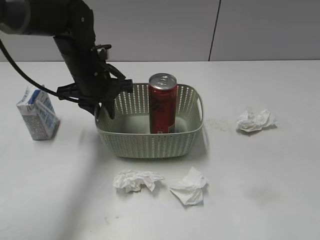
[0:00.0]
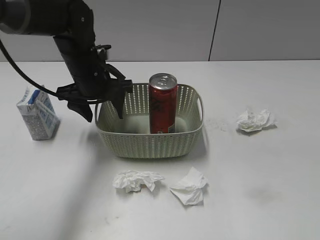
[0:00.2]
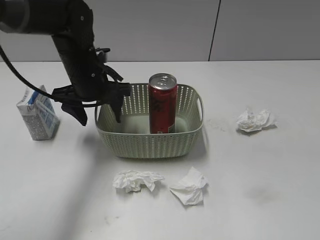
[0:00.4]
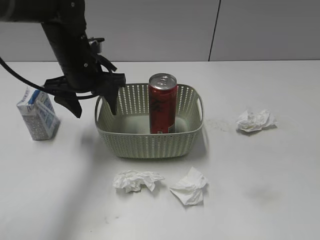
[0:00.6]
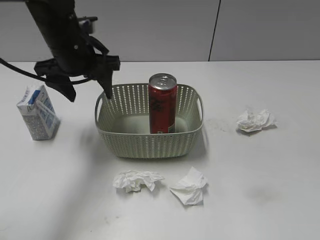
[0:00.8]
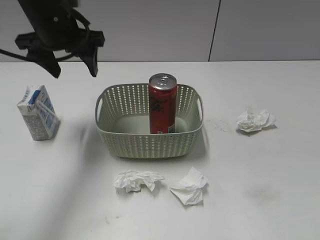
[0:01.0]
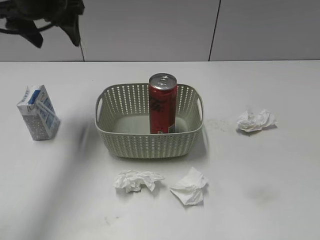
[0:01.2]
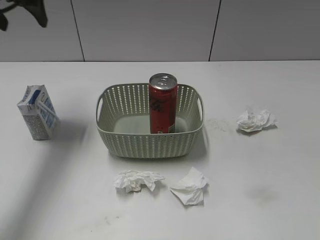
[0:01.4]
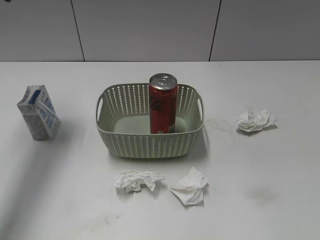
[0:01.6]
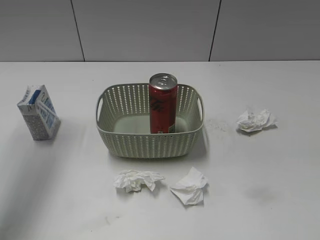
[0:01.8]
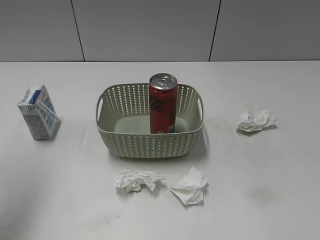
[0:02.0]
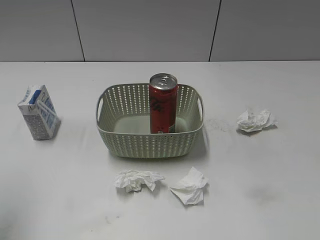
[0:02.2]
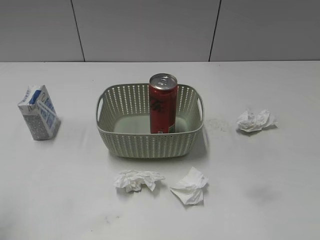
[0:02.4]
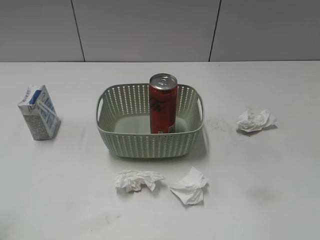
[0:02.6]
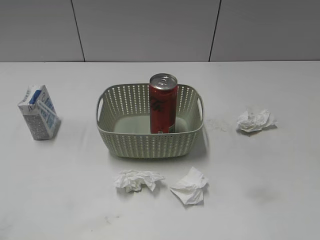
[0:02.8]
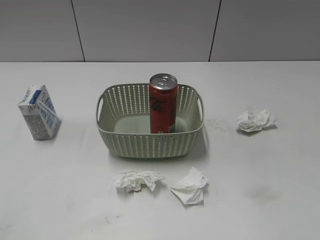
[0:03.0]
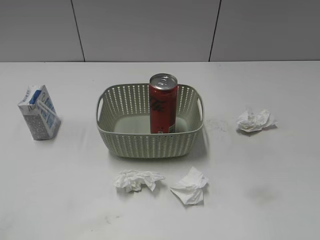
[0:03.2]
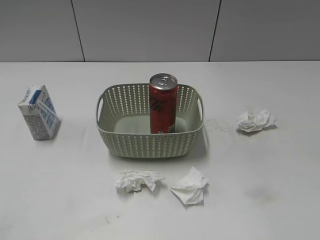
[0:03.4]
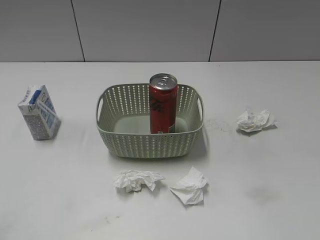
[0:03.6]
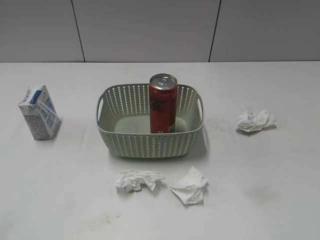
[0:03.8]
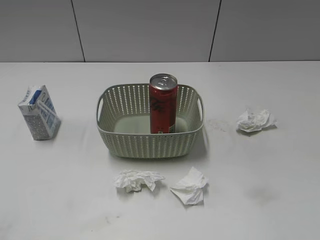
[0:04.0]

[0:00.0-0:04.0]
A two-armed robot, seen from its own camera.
0:00.0 to 0:01.4: The left gripper goes approximately 25 cm upward and to the left, and opens up. Meanwhile the right gripper heads backward, covering approximately 10 cm.
0:01.4 to 0:02.6: The left gripper is displaced backward by about 30 cm.
